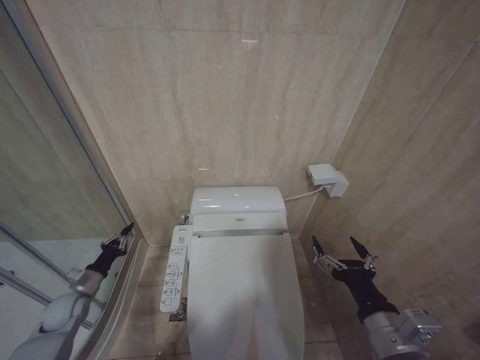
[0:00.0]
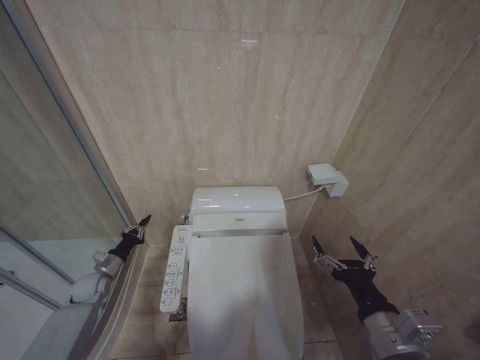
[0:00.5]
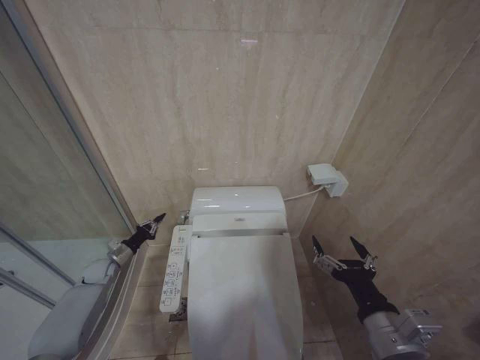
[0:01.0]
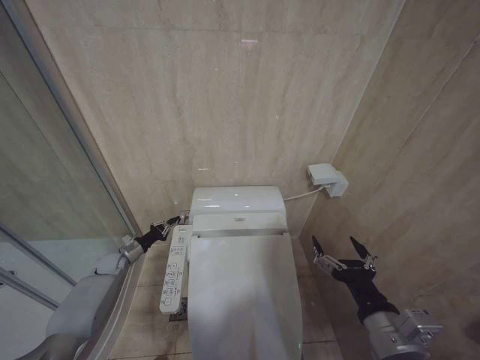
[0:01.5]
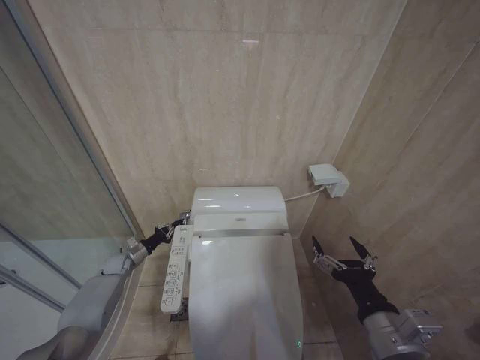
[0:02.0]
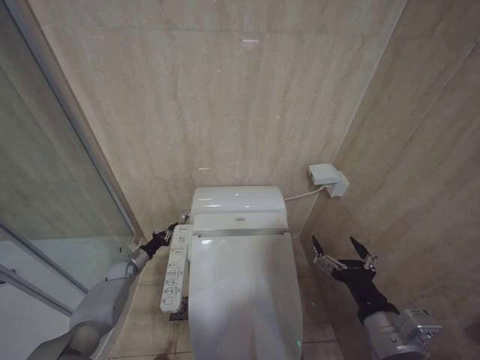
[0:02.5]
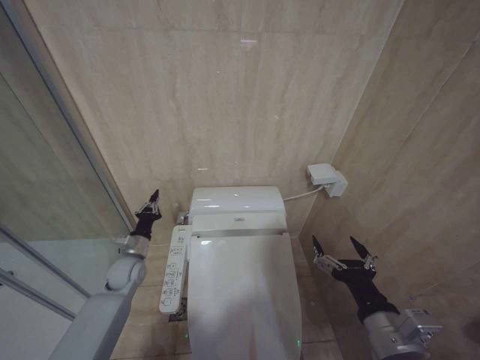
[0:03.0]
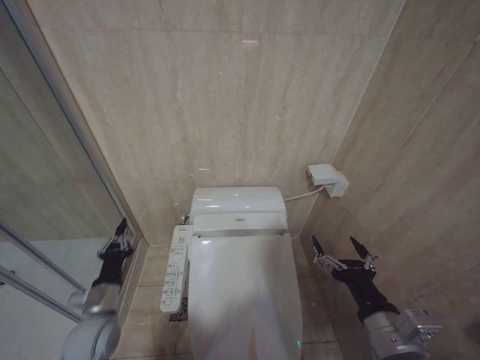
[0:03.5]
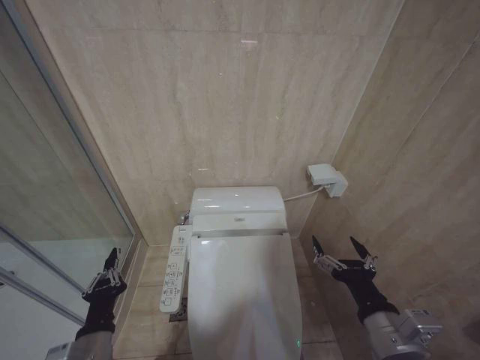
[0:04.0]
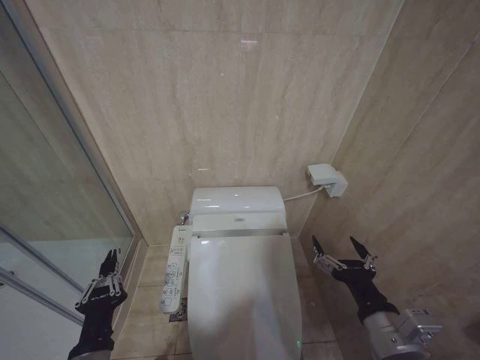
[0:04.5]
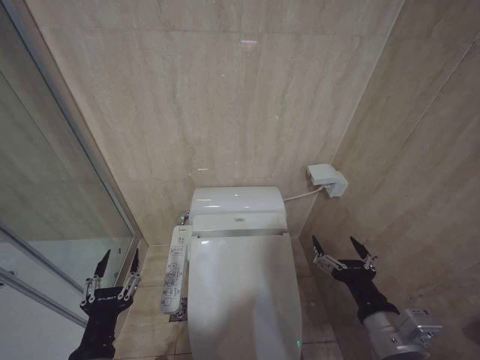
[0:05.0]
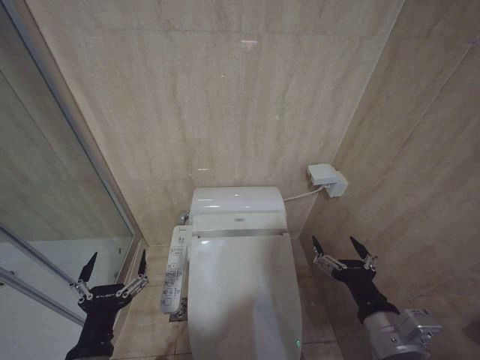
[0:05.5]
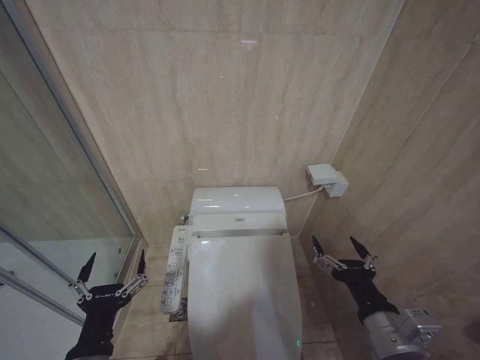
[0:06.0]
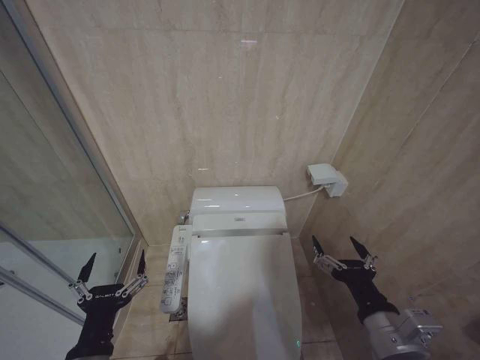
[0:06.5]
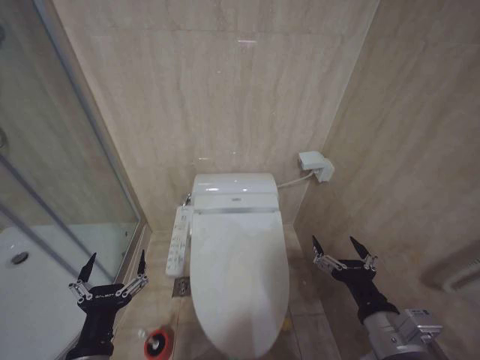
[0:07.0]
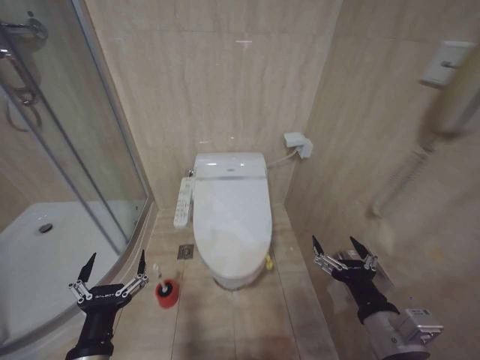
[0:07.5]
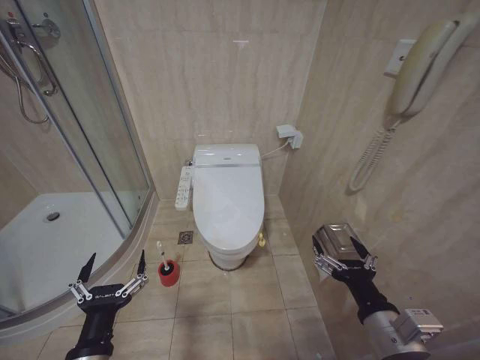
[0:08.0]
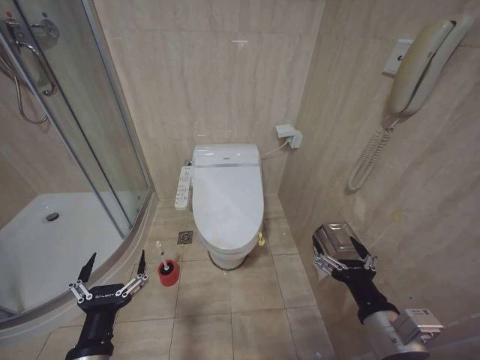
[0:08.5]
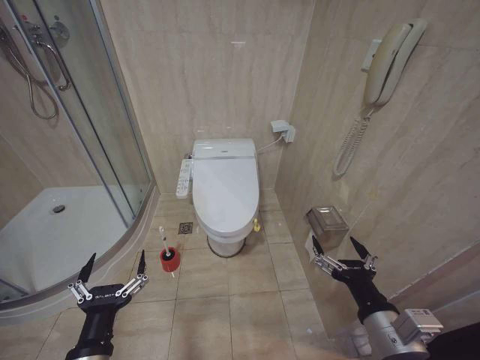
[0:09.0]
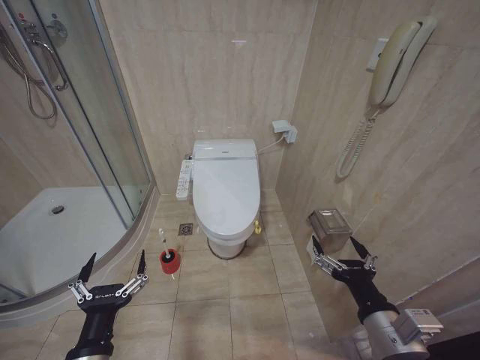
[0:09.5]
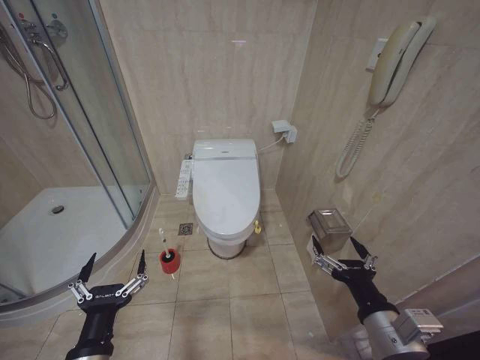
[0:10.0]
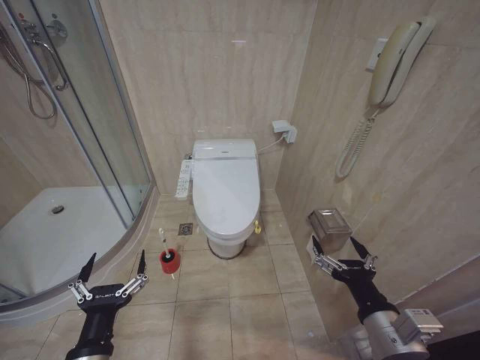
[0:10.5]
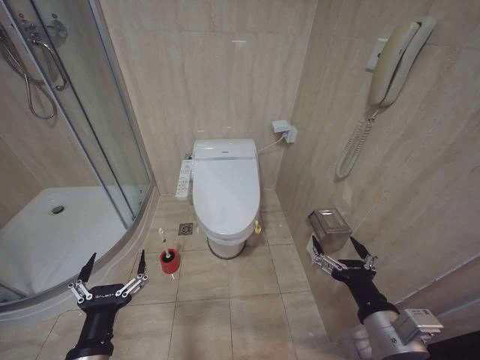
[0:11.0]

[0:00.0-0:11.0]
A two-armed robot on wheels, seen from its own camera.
Task of the whole recording: Open the toilet lid, clean the toilet bowl with a toilet brush, close the toilet lid, and flush.
0:00.0 to 0:02.0: The left gripper travels forward by roughly 15 cm.
0:02.0 to 0:03.5: The left gripper is displaced backward and upward by approximately 25 cm.
0:03.5 to 0:05.5: The left gripper is displaced backward, upward and to the right by roughly 20 cm, and opens its fingers.
0:09.0 to 0:11.0: Both grippers stay put.
